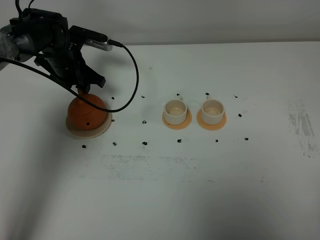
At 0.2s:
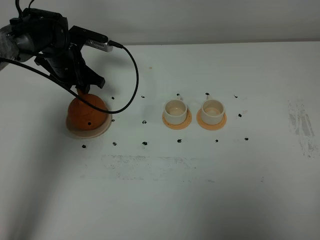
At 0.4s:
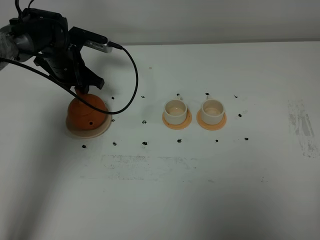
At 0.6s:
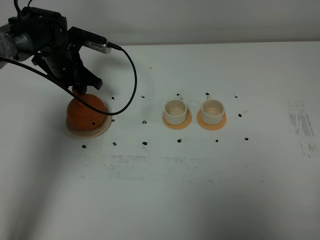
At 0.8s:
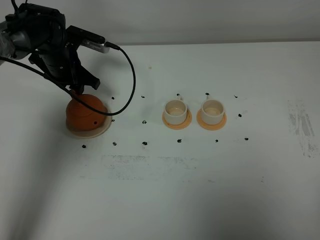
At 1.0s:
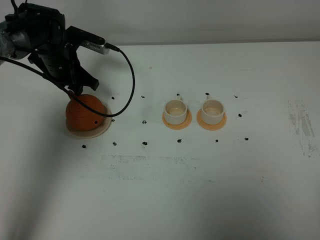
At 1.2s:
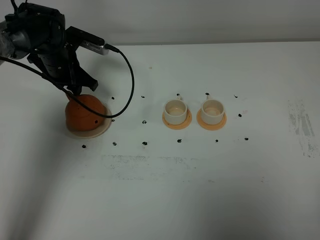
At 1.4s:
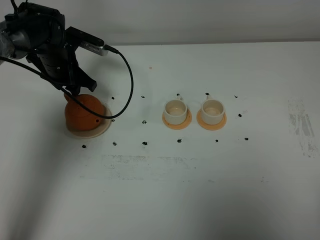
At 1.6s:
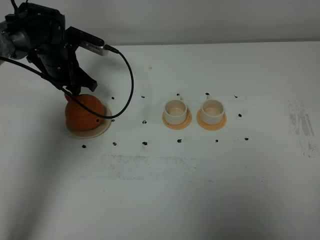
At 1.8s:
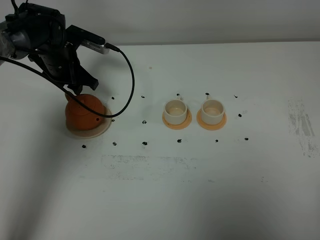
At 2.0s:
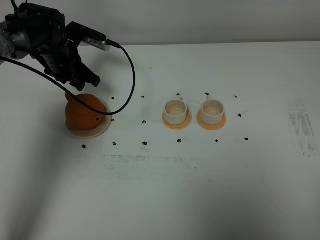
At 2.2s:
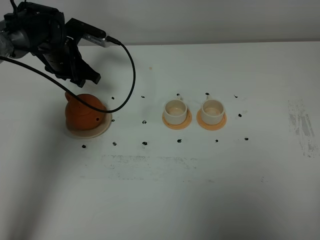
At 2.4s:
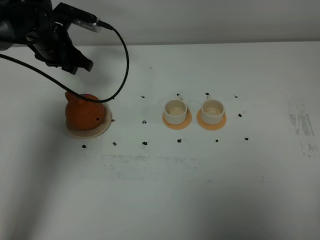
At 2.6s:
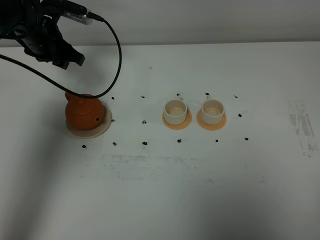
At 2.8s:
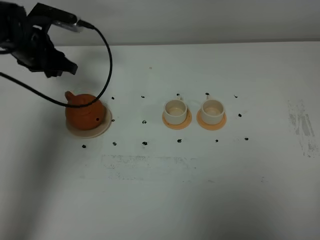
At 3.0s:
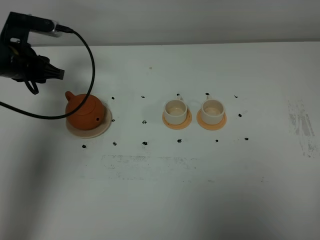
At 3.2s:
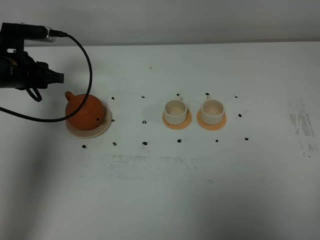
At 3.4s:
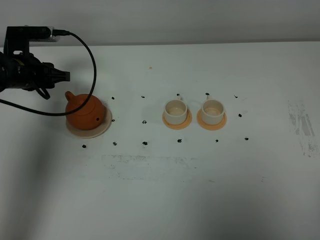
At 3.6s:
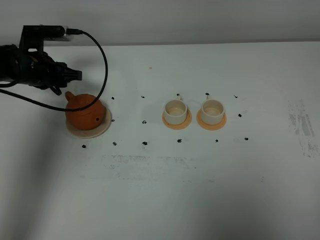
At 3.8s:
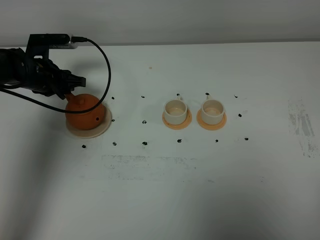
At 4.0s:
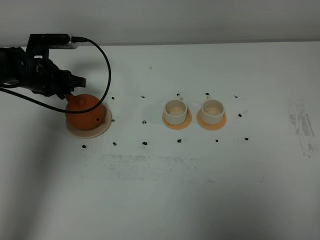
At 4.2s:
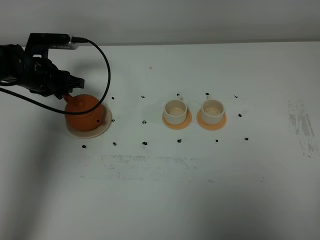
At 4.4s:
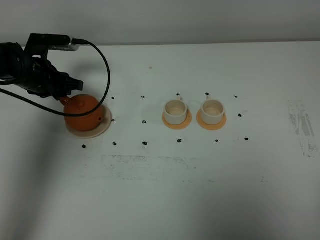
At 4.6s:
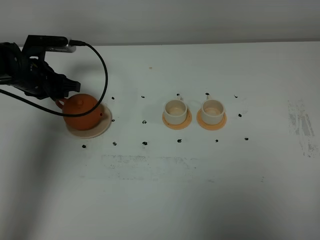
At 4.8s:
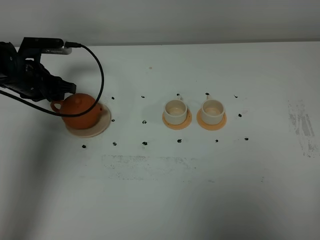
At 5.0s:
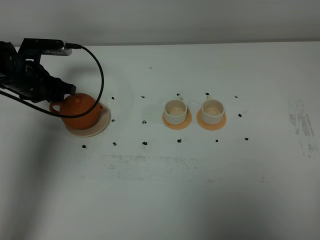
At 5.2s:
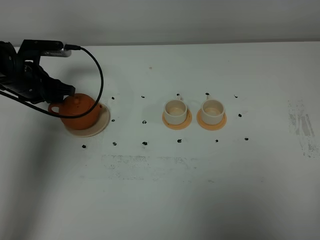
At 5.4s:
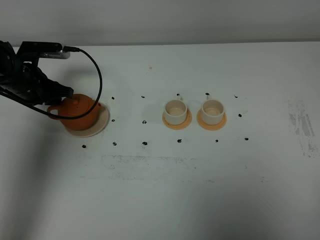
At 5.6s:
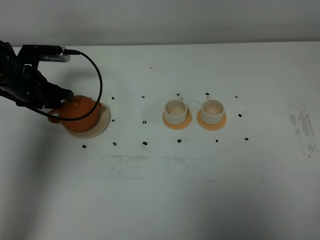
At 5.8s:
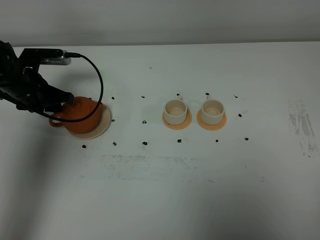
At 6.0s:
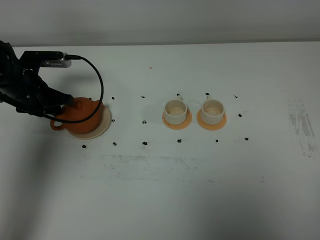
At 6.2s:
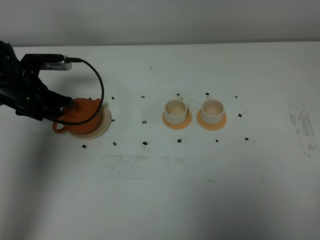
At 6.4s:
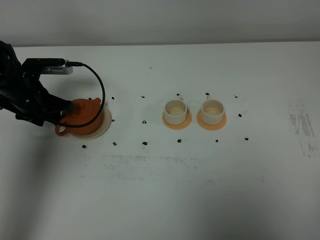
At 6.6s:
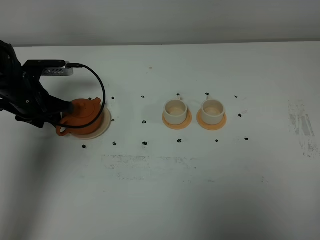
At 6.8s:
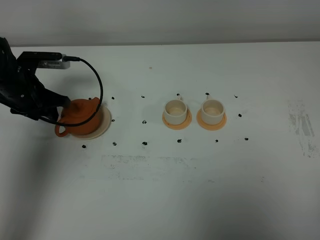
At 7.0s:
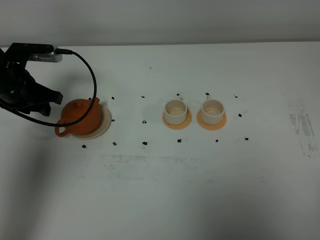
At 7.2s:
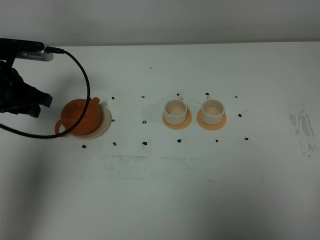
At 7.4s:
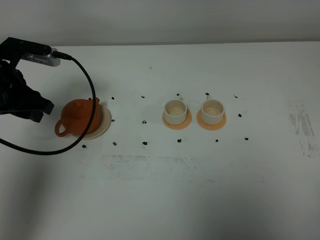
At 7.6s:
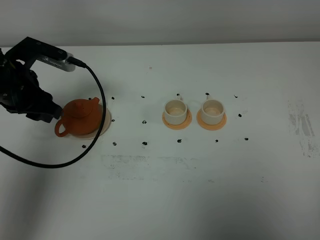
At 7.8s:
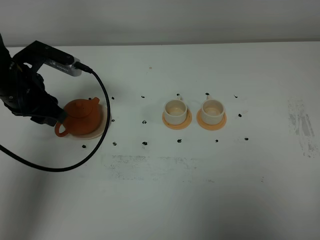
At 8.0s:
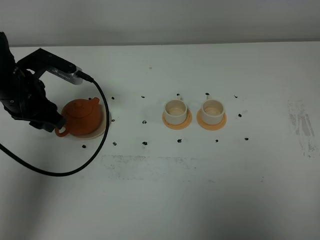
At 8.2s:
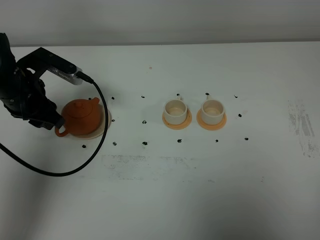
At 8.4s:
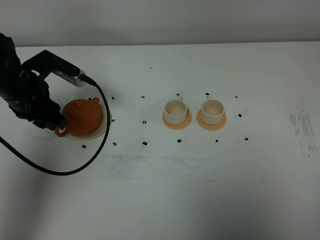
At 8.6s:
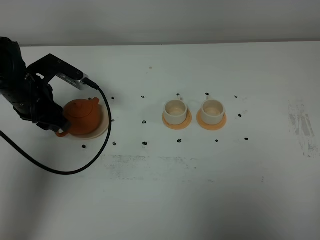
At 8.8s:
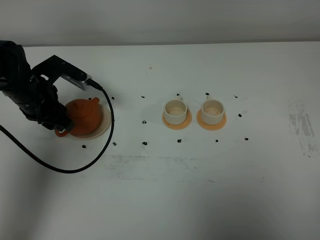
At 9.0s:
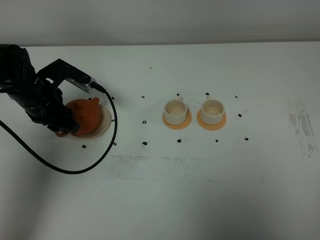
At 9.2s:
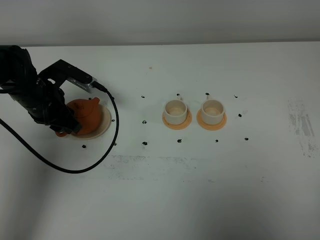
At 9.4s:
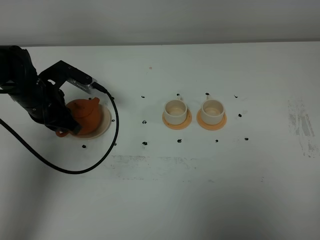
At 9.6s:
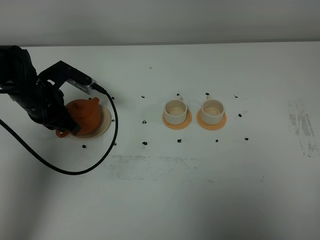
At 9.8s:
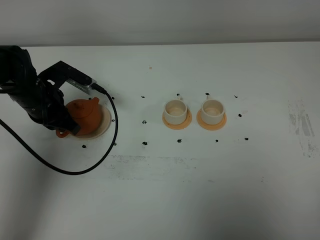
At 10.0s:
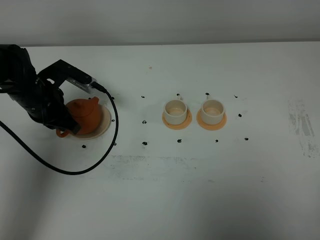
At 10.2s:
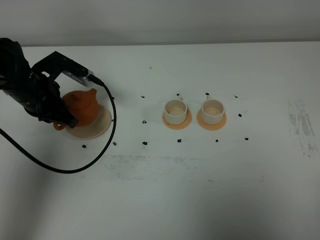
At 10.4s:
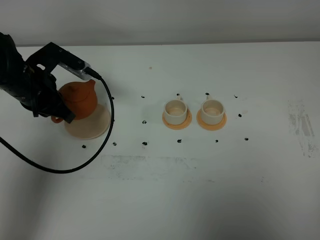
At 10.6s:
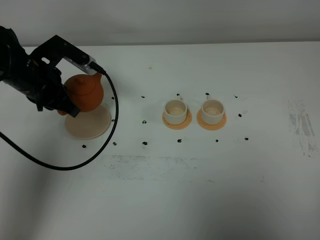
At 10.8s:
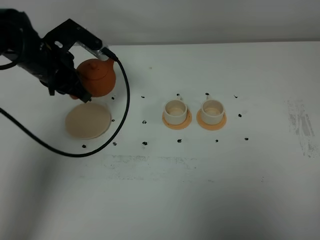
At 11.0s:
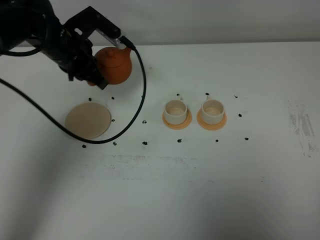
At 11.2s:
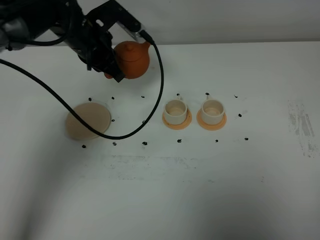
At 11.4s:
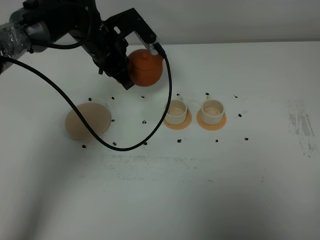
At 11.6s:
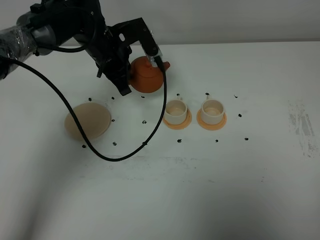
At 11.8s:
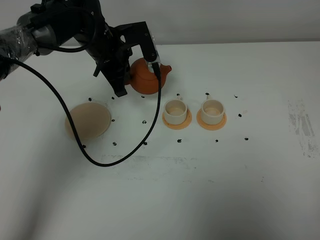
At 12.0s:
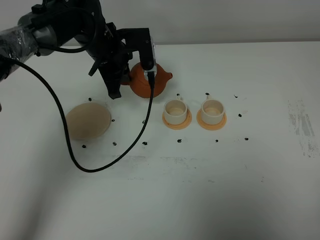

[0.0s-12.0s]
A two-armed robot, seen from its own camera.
Task of the whole recording: grasp the brown teapot and pour the tea into the two white teacups one by one, put the brown teapot back in its original place.
Step, 0.0s to 10.0s: Pick up the teapot with the left gripper.
0.0s to 1.6s: The grippers stay close to where they were, moving slightly.
1.6s to 3.0s: The left gripper is displaced to the left and backward by approximately 10 cm.
3.0s to 4.4s: The left gripper changes place by roughly 5 cm.
4.4s to 6.0s: The grippers make only small movements.
6.0s to 7.6s: The left gripper shifts roughly 10 cm upward and backward.
7.6s to 9.0s: The left gripper shifts roughly 5 cm downward.
9.0s to 10.4s: The left gripper closes.
10.4s to 12.0s: The left gripper goes roughly 15 cm to the right and forward.

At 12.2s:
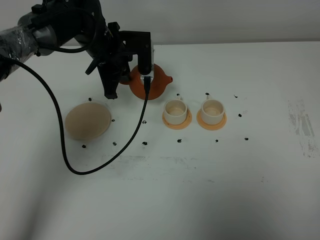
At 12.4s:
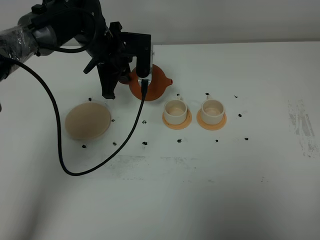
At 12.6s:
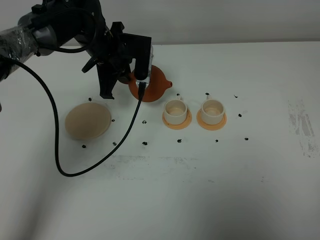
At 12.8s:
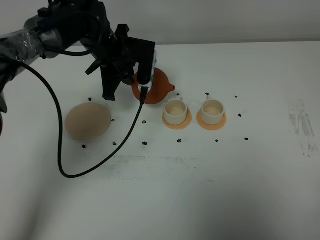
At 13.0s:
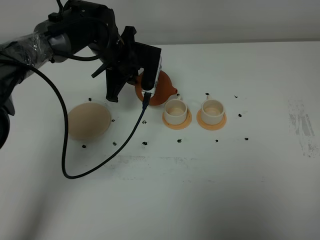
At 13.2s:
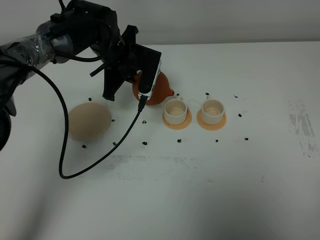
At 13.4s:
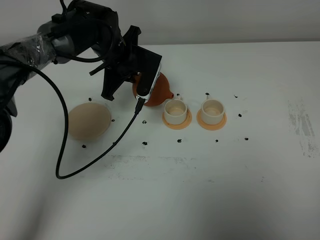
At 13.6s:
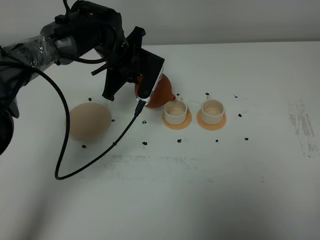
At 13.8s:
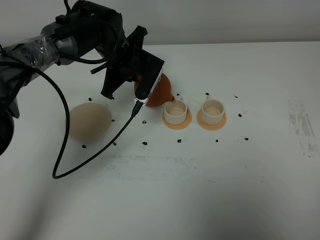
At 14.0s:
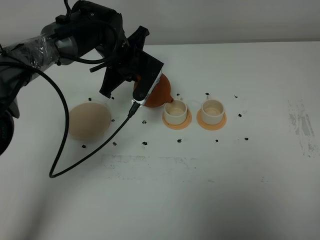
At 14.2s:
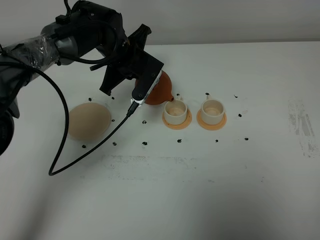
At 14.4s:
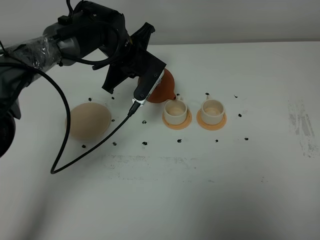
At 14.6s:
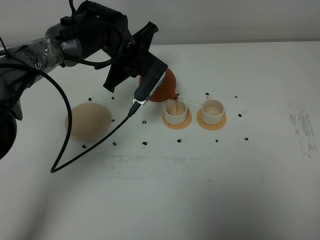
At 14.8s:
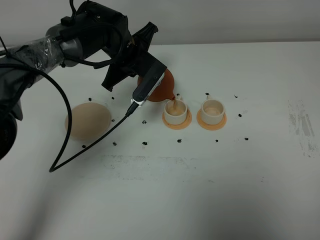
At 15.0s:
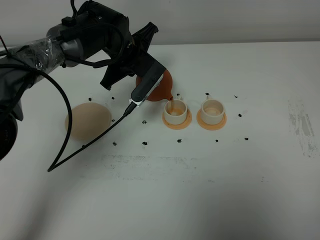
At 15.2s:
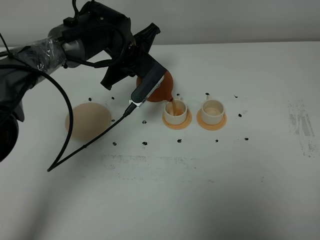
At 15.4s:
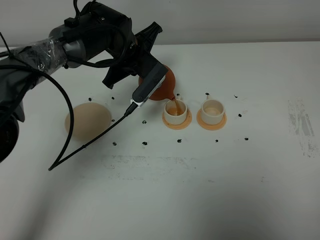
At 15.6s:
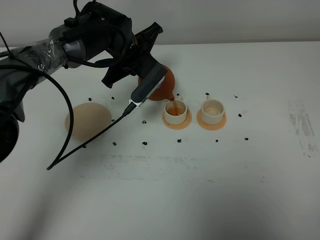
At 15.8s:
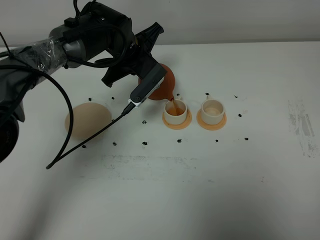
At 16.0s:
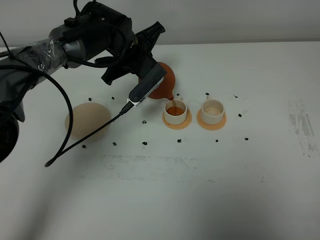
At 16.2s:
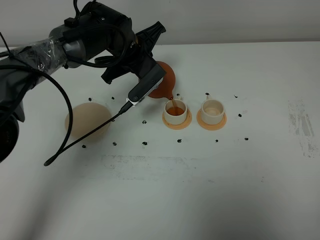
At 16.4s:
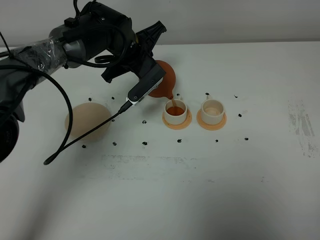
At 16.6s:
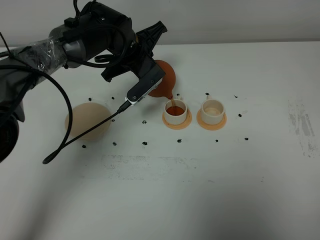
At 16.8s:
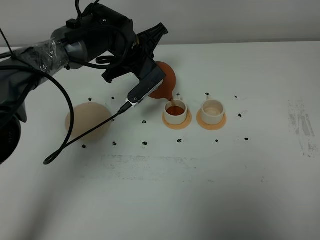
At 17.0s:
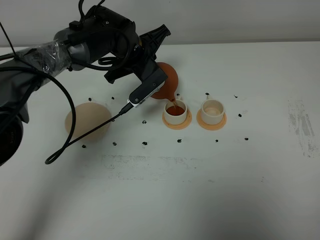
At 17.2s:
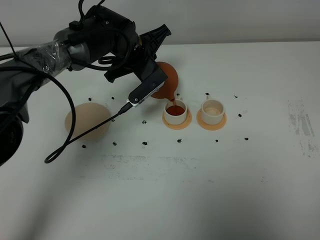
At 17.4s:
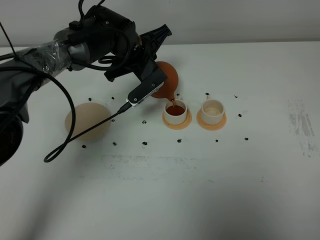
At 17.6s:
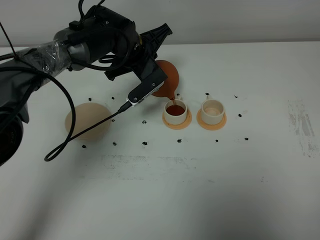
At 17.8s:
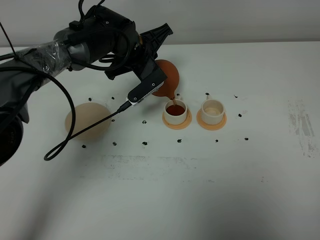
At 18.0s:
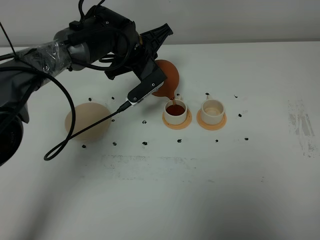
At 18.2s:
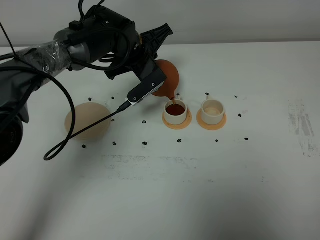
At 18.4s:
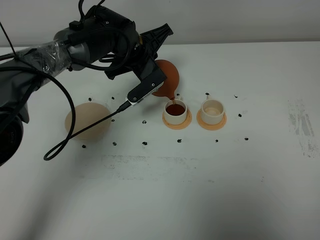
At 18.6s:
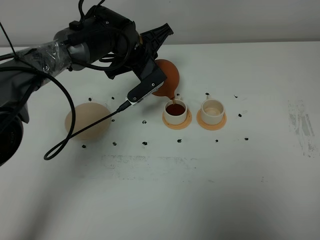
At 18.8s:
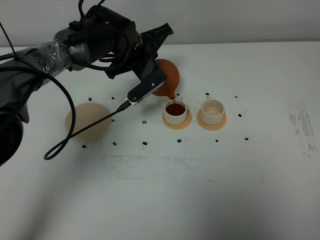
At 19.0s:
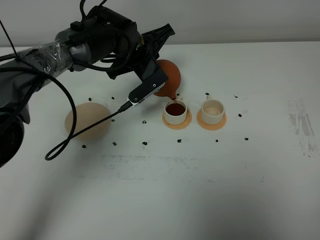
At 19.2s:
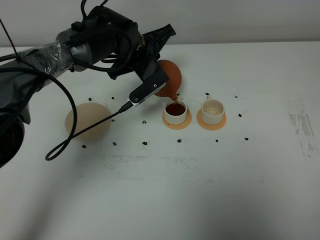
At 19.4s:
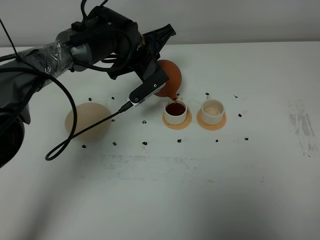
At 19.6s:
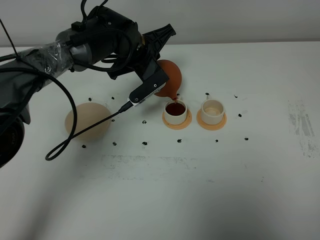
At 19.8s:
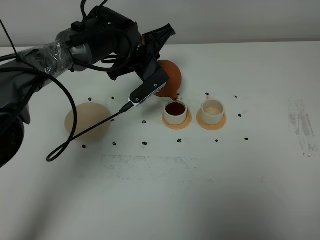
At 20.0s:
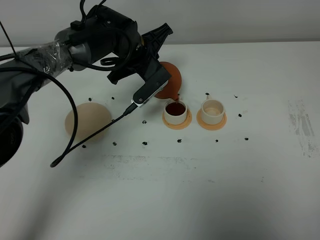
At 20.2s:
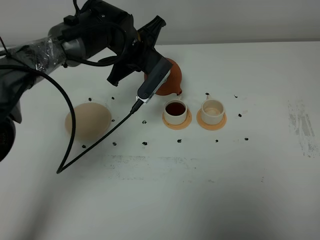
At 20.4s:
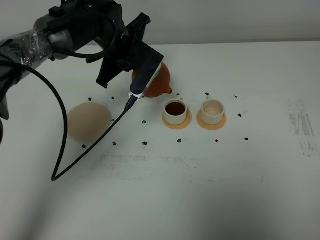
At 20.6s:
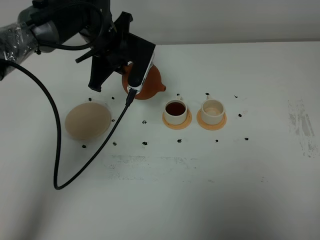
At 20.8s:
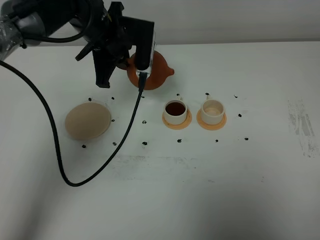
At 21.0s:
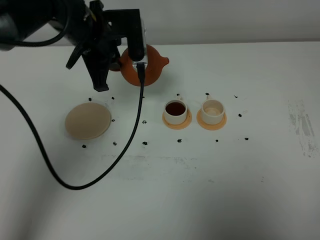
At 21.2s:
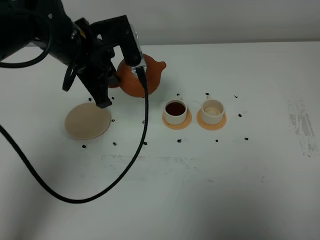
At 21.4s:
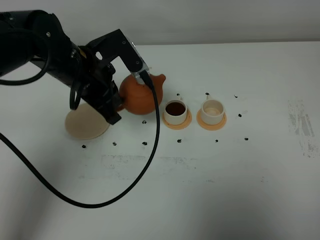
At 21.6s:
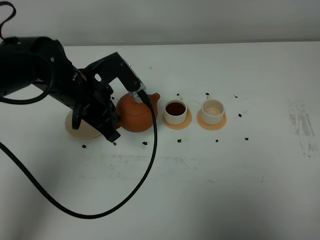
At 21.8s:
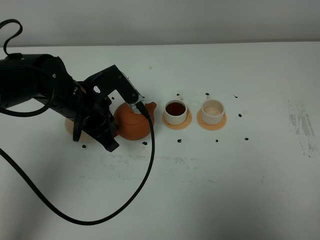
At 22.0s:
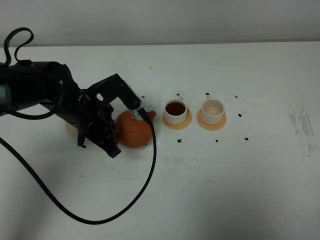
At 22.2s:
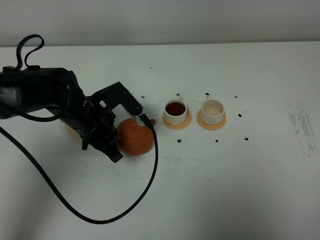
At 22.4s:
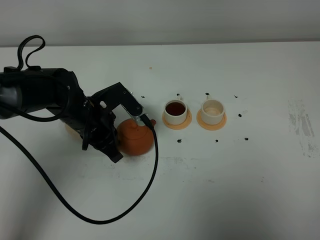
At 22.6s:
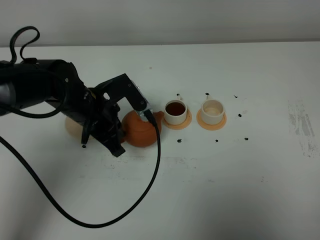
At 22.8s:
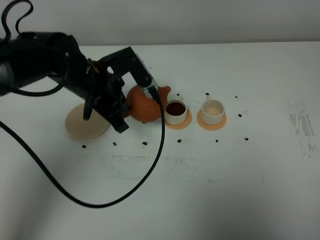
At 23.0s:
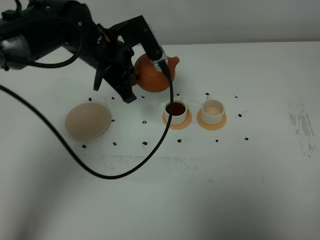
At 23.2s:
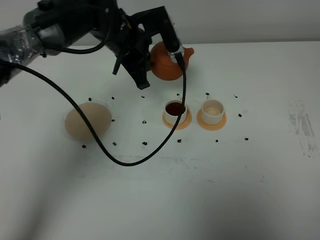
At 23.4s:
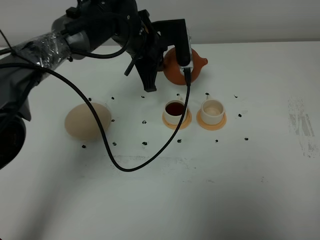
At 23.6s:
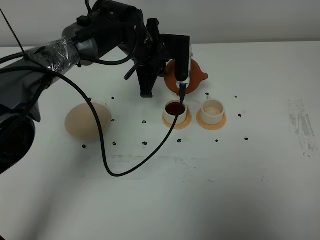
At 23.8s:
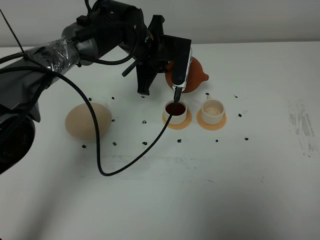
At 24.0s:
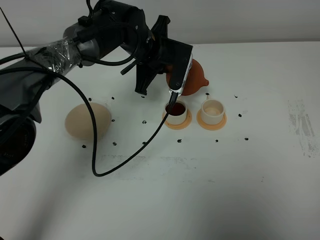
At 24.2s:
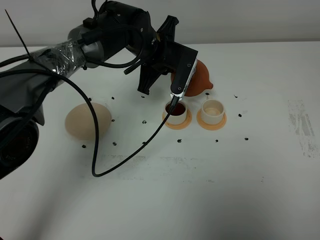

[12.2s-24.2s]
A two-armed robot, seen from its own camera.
Task of the whole recording: grasp the brown teapot and pour the tea into the two white teacups one by one, put the brown teapot back in its original place.
13.8s to 15.2s: The right gripper closes its fingers.
15.2s to 18.2s: The grippers make only small movements.
18.2s to 19.8s: Both grippers stay put.
19.8s to 21.2s: The left gripper goes some 15 cm backward, to the left and upward.
21.2s to 22.6s: The left gripper travels downward by some 10 cm.
22.6s to 24.2s: The left gripper heads forward and to the right, covering about 15 cm.
